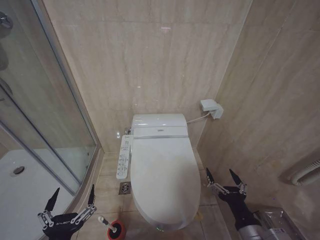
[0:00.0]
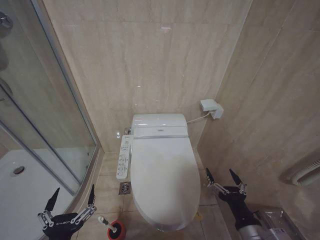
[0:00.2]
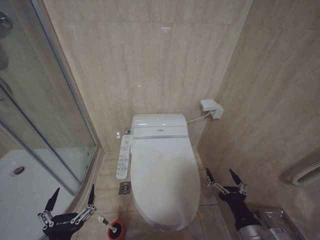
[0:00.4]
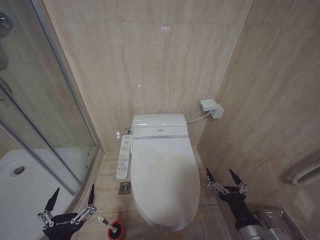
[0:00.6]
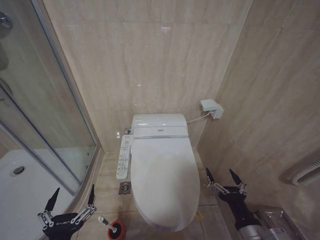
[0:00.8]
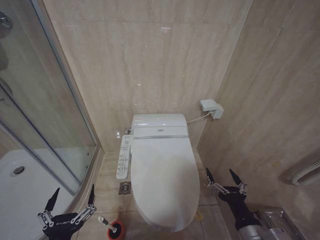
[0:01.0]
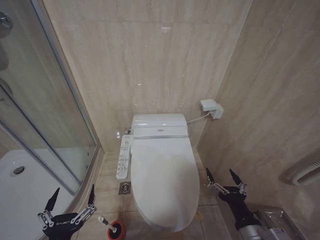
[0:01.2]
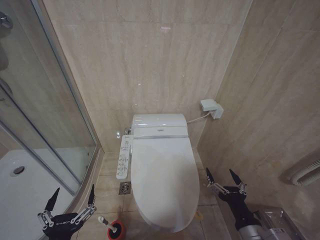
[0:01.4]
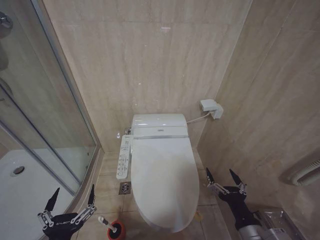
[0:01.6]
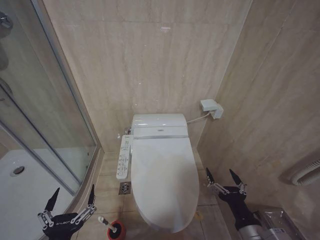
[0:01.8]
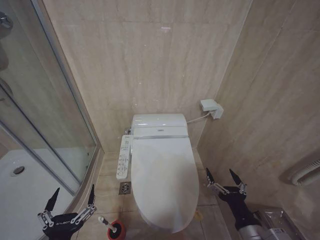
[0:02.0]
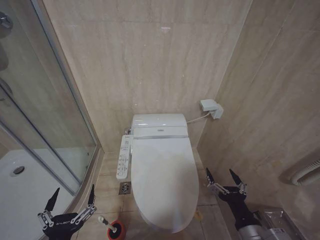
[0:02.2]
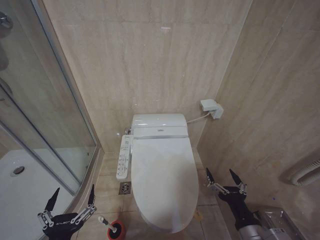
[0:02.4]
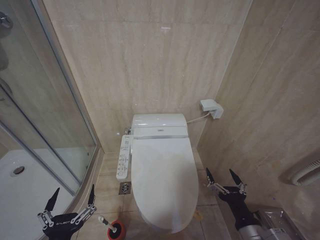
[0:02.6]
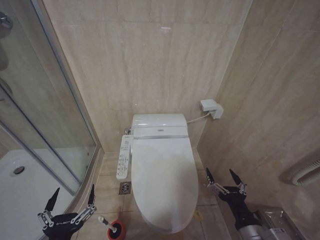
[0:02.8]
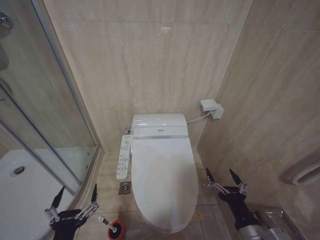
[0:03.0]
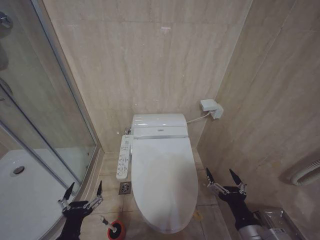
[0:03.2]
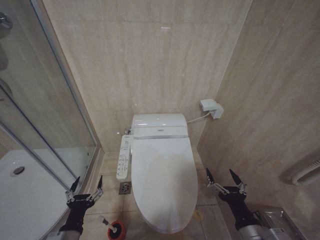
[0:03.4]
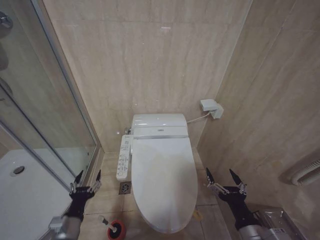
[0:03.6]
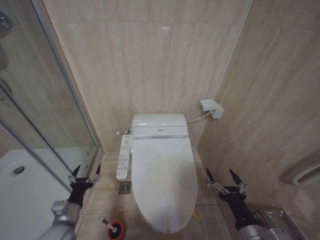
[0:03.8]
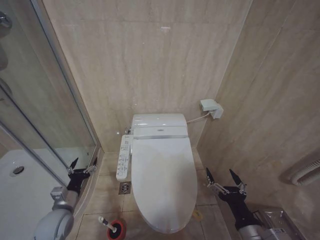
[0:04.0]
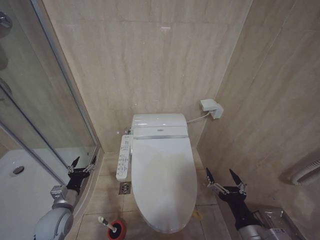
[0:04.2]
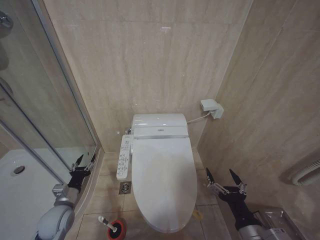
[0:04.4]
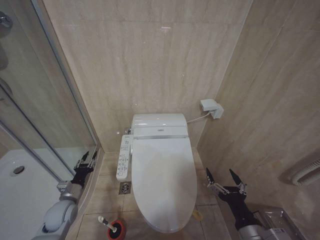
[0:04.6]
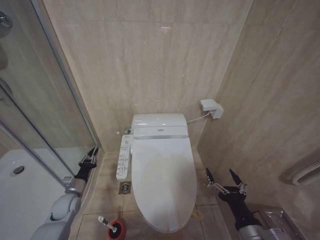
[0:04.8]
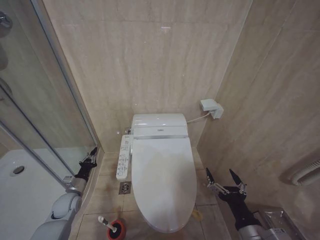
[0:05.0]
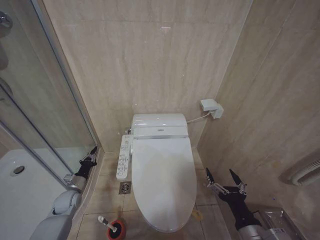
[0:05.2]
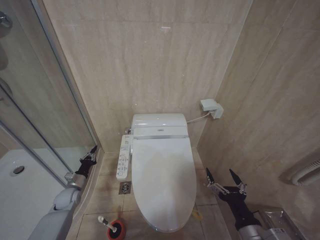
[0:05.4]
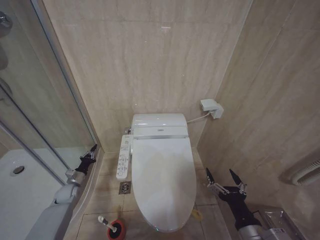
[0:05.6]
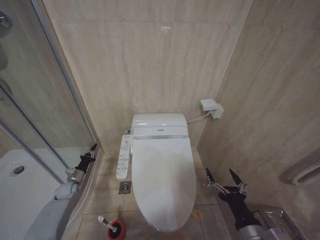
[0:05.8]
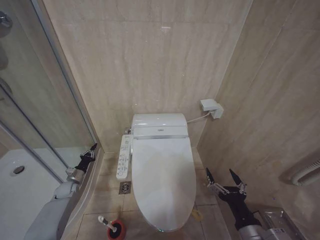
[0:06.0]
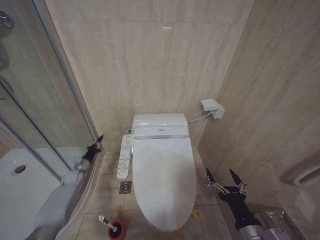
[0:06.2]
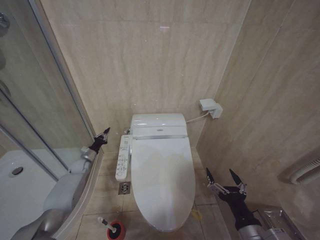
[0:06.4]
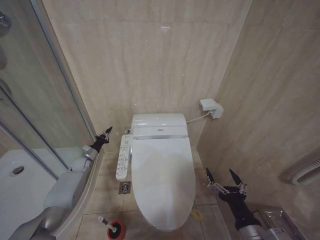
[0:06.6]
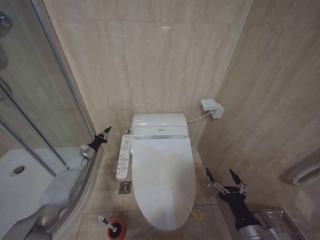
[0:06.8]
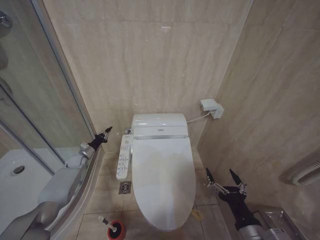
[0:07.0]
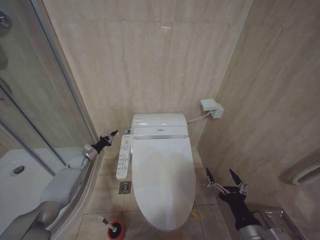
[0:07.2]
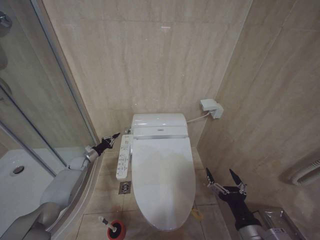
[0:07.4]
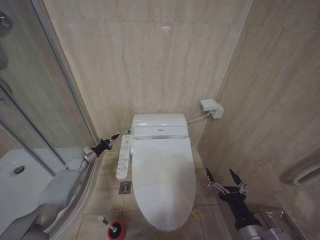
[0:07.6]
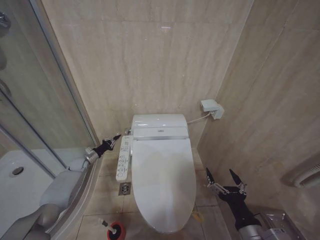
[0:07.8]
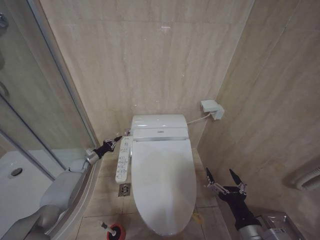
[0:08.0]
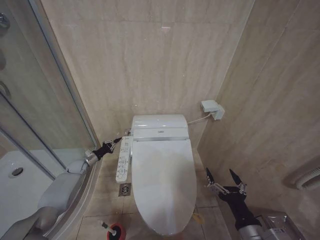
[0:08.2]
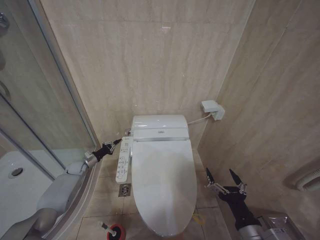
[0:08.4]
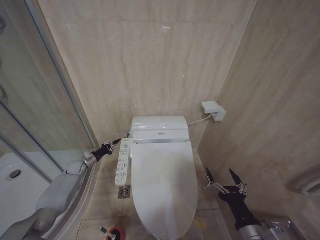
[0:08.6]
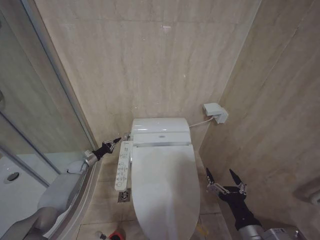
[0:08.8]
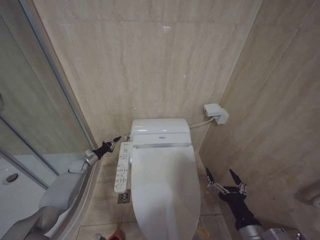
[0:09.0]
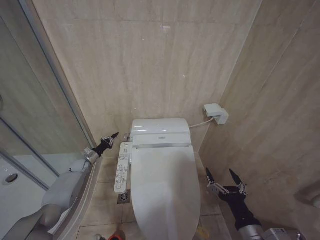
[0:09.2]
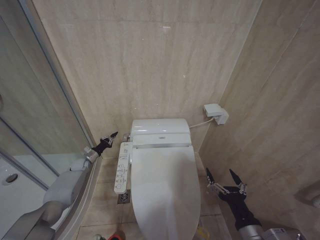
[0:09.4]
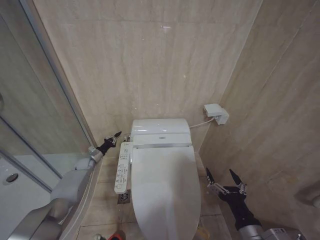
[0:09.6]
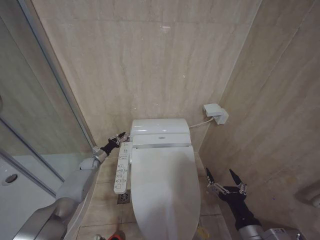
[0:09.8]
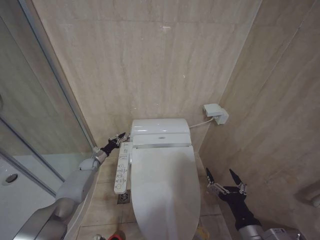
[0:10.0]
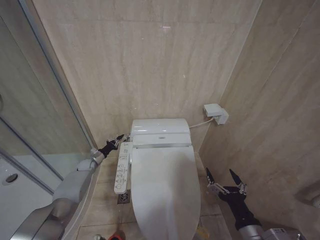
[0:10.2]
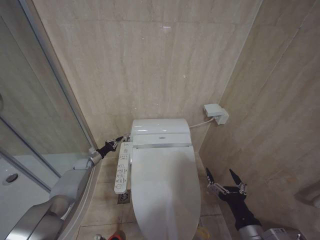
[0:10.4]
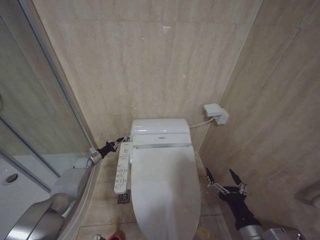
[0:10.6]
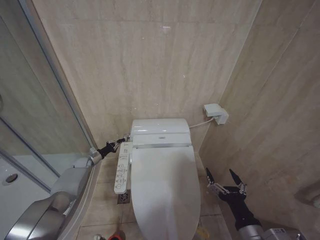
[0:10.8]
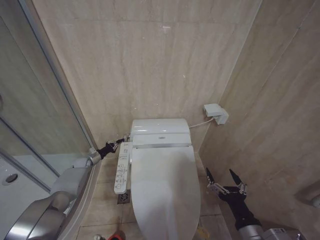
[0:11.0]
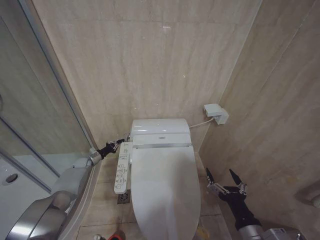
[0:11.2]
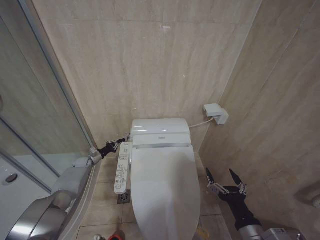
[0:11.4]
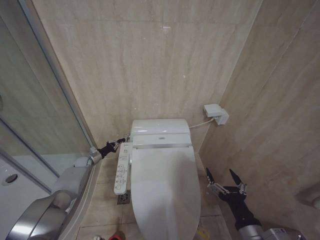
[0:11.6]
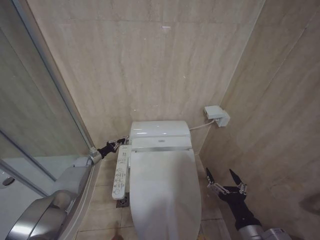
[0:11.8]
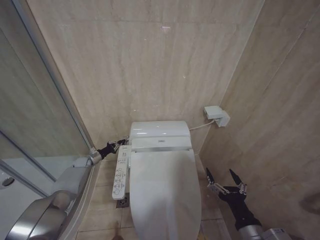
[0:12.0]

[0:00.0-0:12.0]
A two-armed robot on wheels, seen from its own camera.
Task of the whole recording: Open the toilet lid, clean the toilet bowl with a toilet brush, close the toilet lid, and flush.
0:00.0 to 0:03.0: Both grippers stay put.
0:03.0 to 0:04.4: The left gripper moves forward and to the left, roughly 25 cm.
0:04.4 to 0:06.0: The left gripper shifts roughly 20 cm forward, downward and to the left, and closes up.
0:06.0 to 0:07.6: The left gripper is displaced forward and upward by about 10 cm.
0:07.6 to 0:12.0: There are only small adjustments of the grippers.

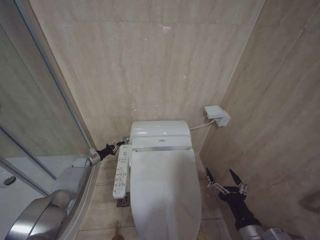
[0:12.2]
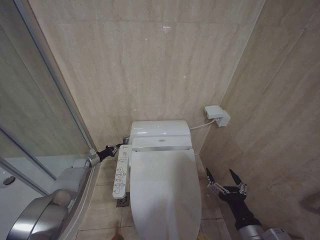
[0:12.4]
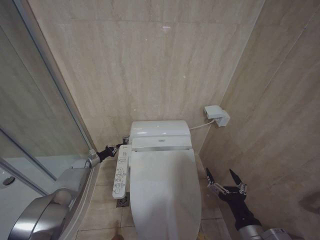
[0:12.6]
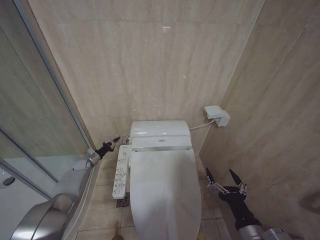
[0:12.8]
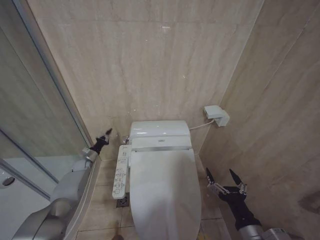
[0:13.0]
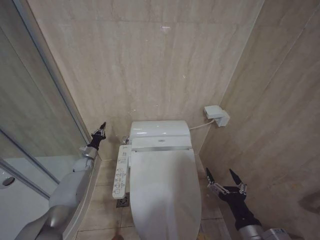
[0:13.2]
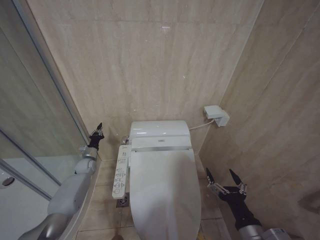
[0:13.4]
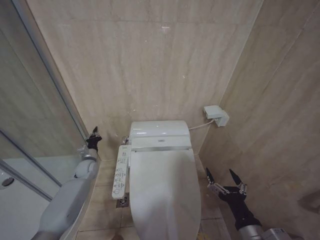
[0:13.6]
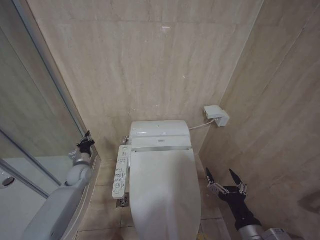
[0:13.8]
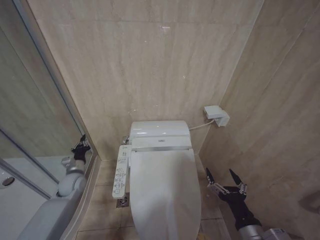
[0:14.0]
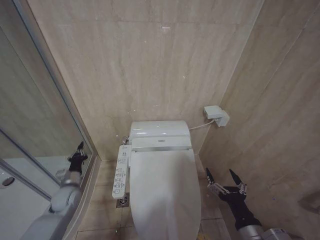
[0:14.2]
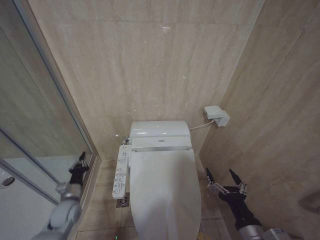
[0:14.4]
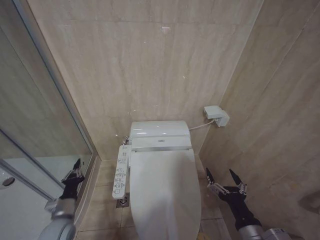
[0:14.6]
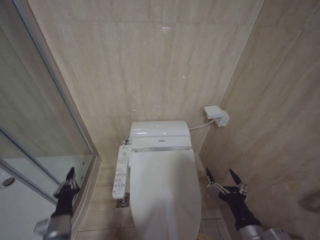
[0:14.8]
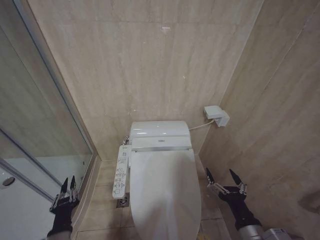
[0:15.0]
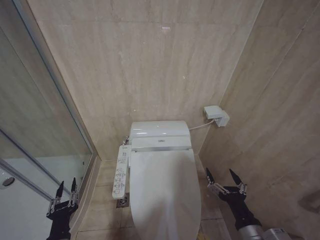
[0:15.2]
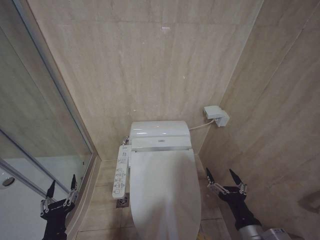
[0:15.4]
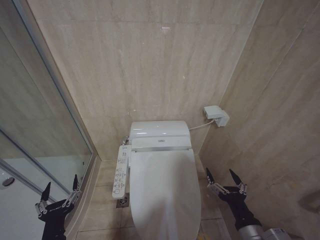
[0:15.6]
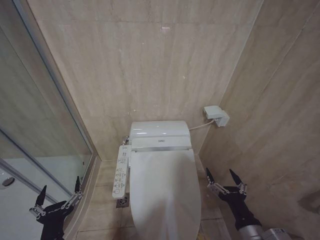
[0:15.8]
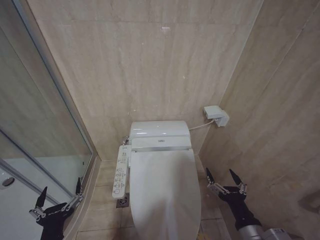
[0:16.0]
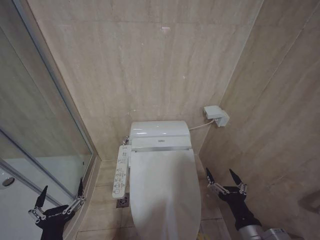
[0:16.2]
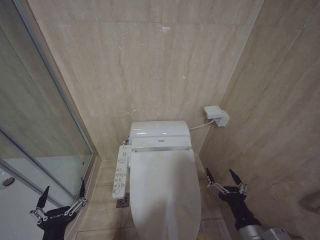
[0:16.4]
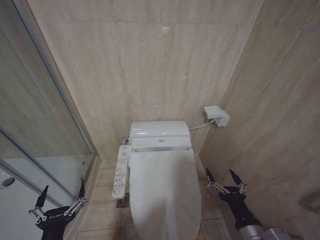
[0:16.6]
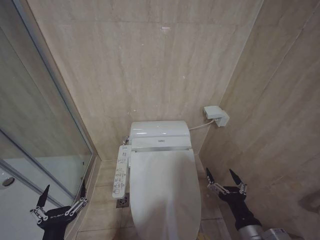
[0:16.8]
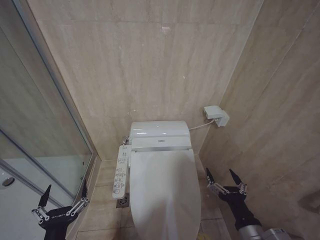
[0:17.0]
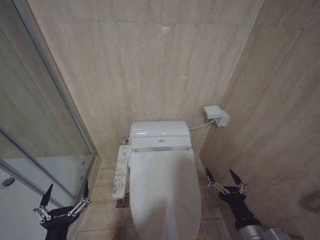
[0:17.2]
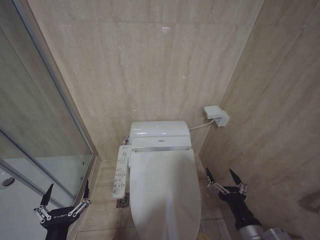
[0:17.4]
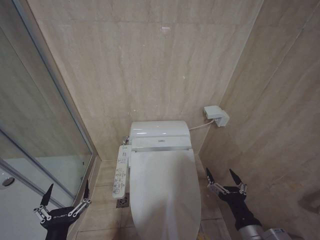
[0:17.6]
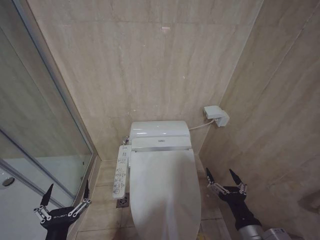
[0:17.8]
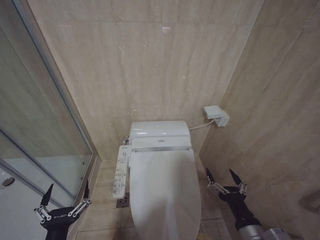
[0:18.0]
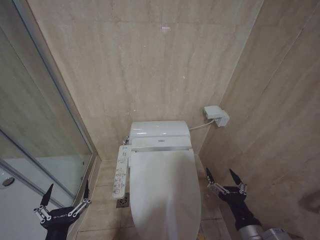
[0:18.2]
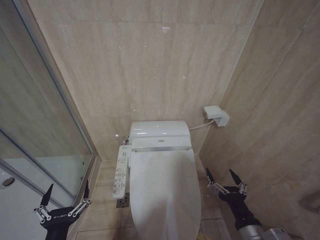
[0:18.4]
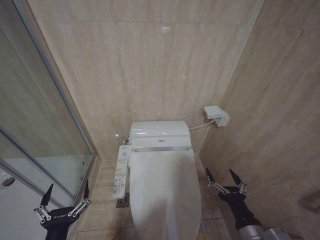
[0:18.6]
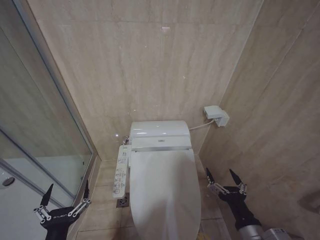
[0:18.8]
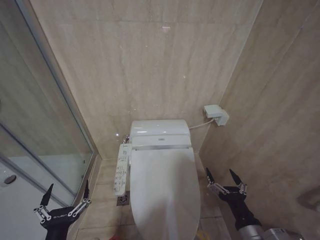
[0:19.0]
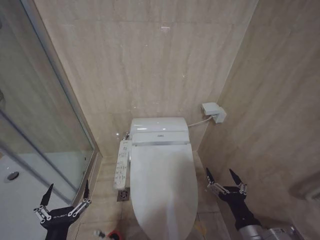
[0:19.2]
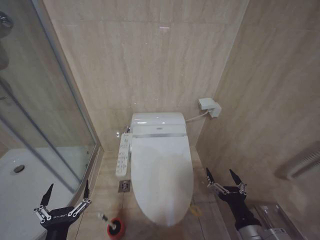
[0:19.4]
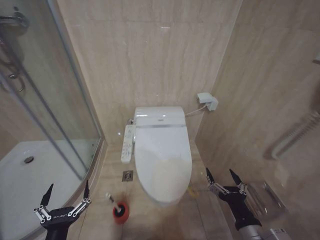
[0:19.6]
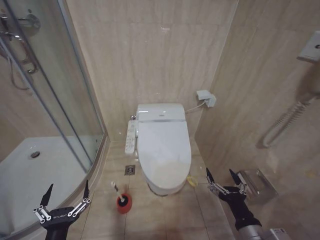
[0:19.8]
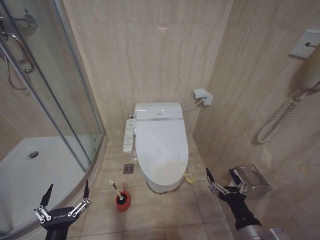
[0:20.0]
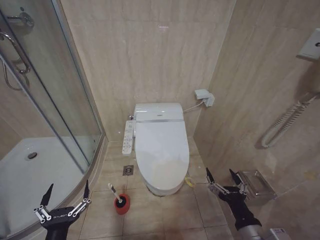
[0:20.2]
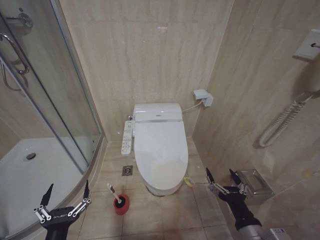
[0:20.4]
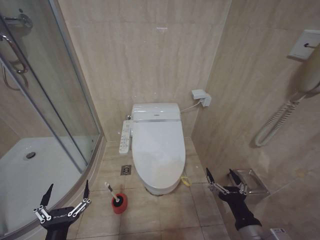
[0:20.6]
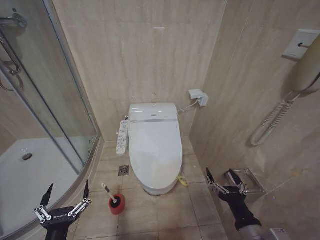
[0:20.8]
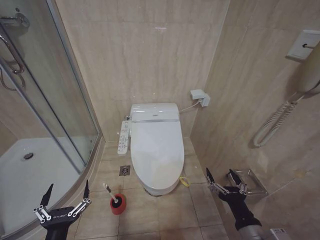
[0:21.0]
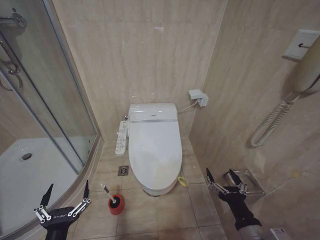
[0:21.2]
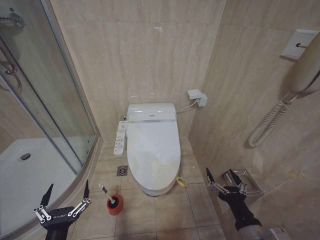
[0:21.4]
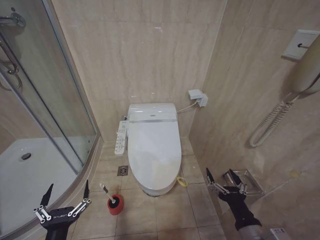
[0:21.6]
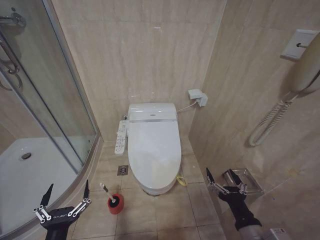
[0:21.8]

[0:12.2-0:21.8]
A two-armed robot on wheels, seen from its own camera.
Task of the whole recording: Open the toilet lid, clean the toilet bowl with a toilet brush, close the toilet lid, and flush.
0:12.2 to 0:13.8: The left gripper travels backward, upward and to the right by approximately 15 cm.
0:13.8 to 0:15.4: The left gripper shifts about 35 cm backward, and opens.
0:15.4 to 0:17.0: The left gripper ends up some 5 cm from where it was, and opens its fingers.
0:17.0 to 0:18.6: Both grippers stay put.
0:20.2 to 0:21.8: Both grippers stay about where they are.

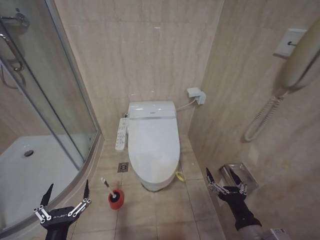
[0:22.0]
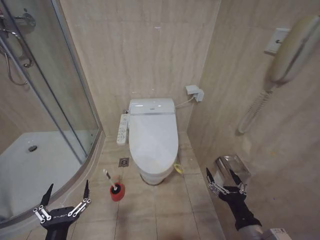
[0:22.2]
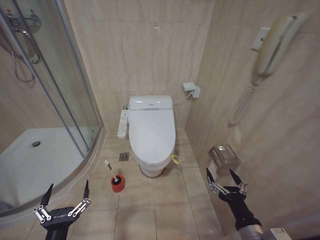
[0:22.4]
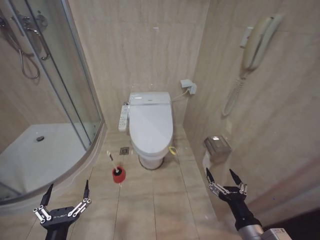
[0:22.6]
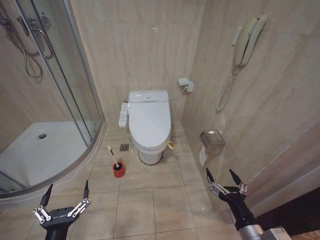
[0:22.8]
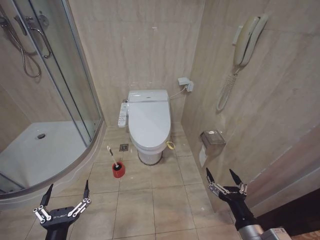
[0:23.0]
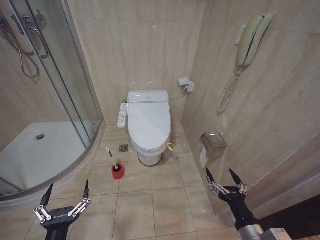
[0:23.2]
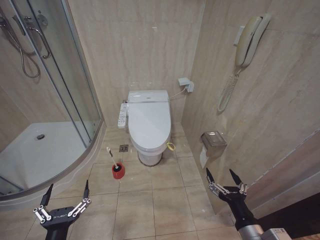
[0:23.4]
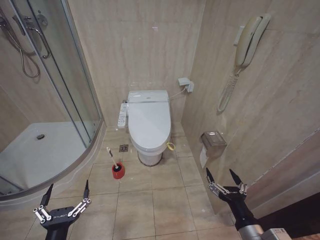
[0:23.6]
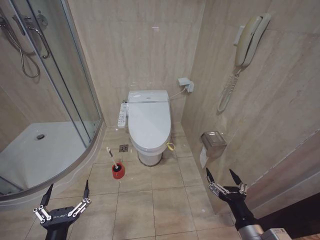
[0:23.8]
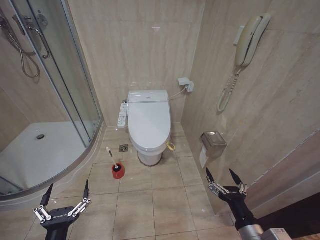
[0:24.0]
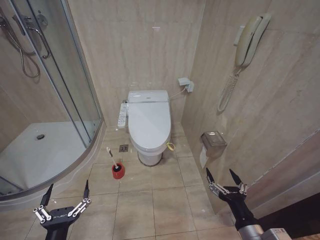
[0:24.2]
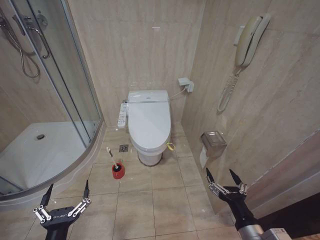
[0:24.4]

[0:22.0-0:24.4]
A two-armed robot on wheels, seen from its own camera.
Task of the whole recording: Open the toilet lid, clean the toilet bowl with a toilet brush, close the toilet lid, and flush.
0:23.2 to 0:24.4: Neither gripper changes place.
